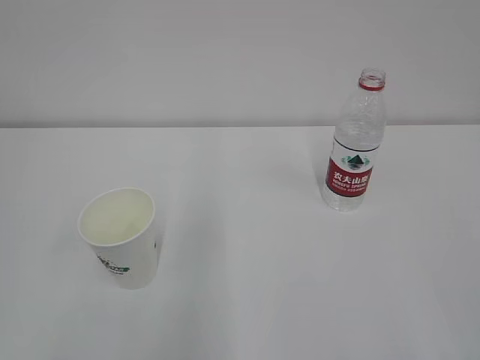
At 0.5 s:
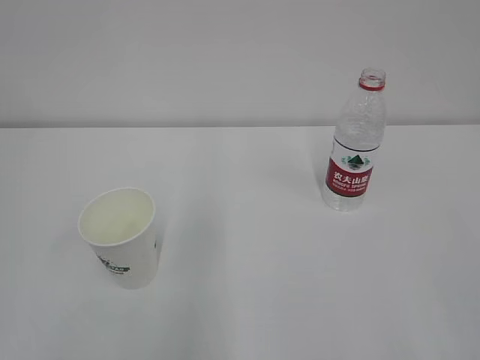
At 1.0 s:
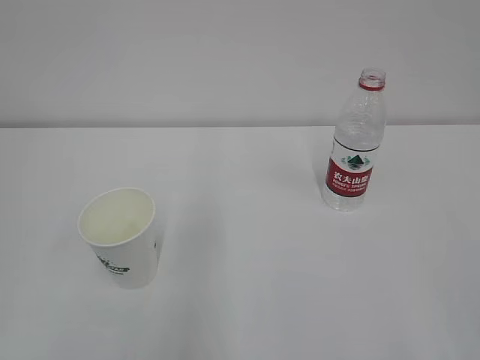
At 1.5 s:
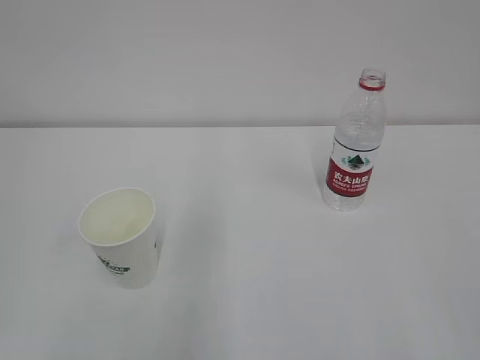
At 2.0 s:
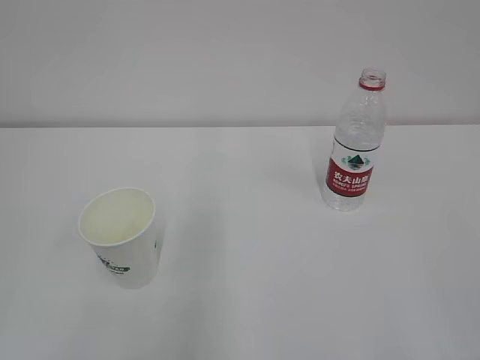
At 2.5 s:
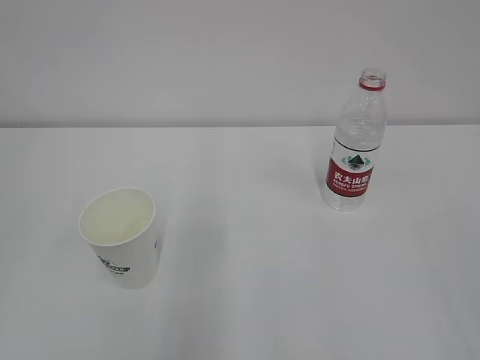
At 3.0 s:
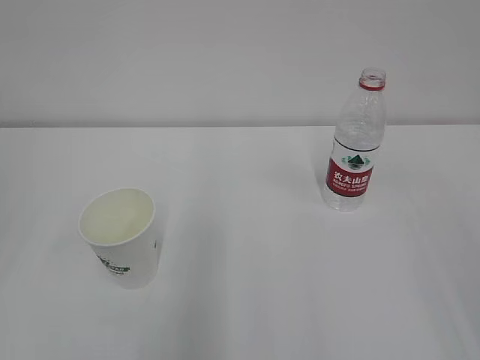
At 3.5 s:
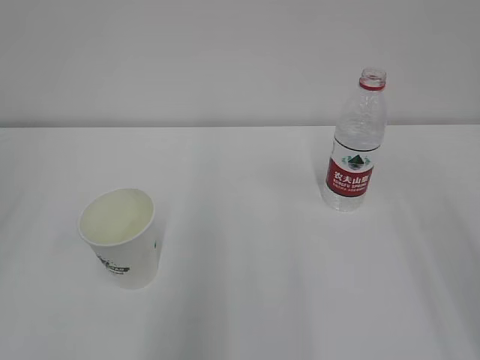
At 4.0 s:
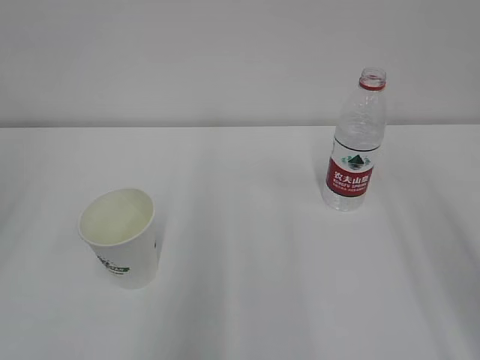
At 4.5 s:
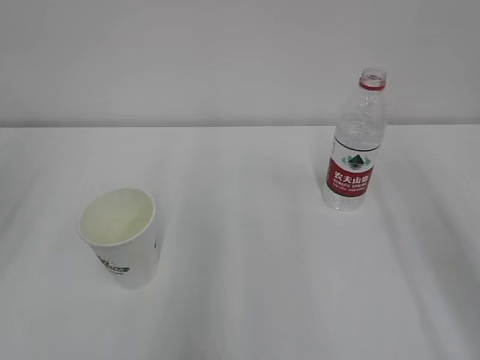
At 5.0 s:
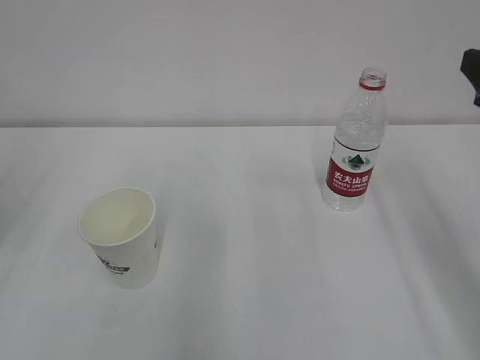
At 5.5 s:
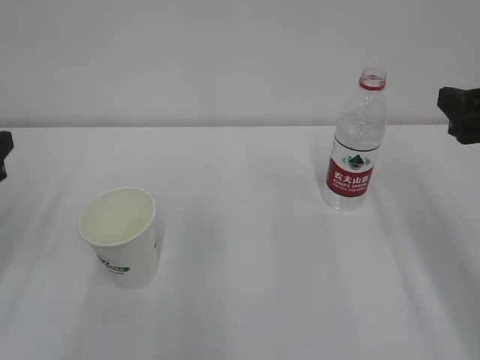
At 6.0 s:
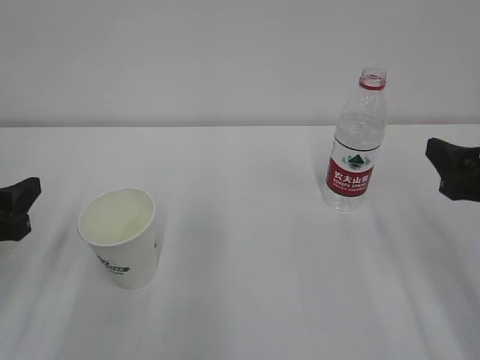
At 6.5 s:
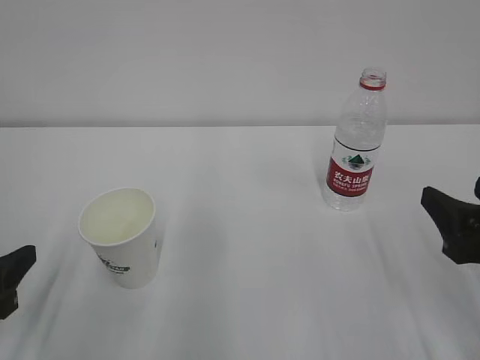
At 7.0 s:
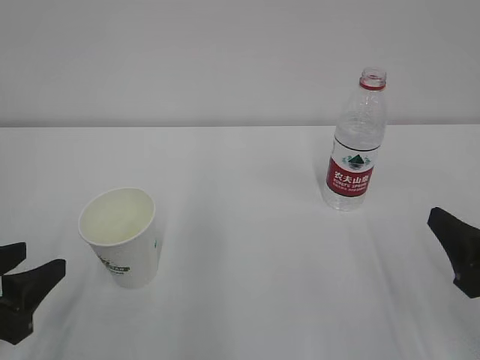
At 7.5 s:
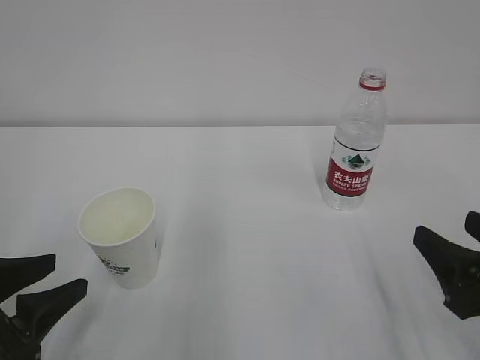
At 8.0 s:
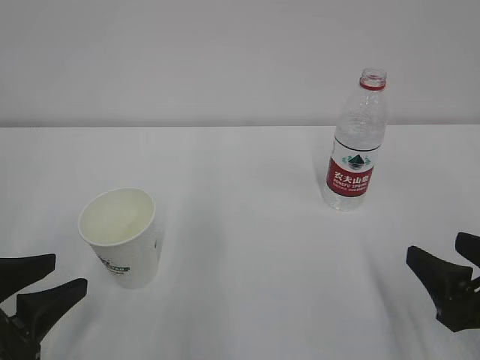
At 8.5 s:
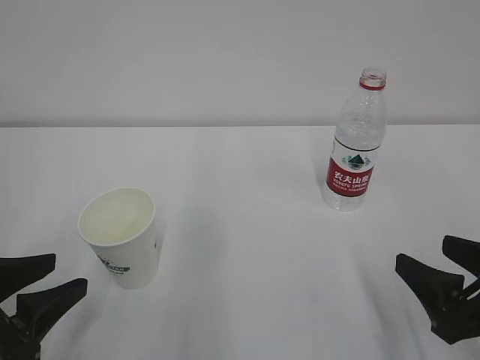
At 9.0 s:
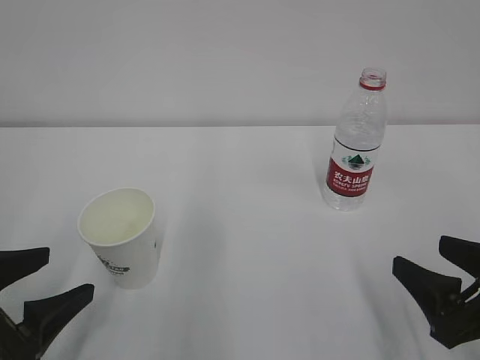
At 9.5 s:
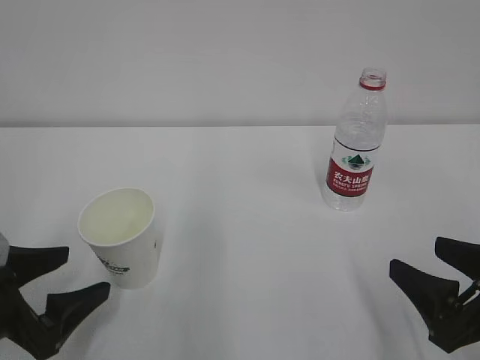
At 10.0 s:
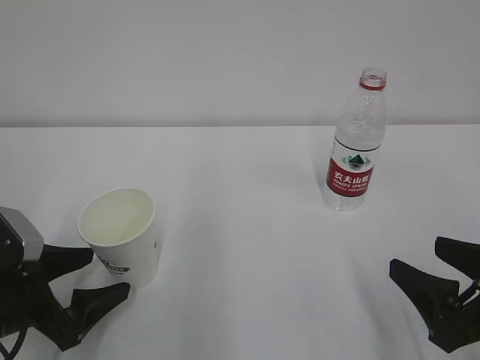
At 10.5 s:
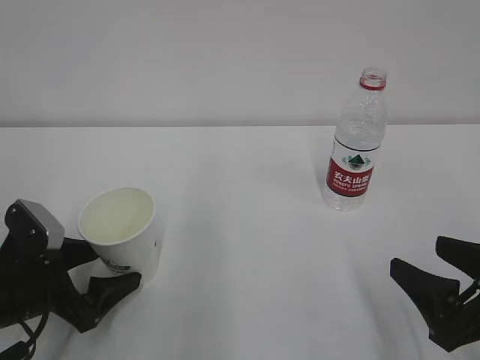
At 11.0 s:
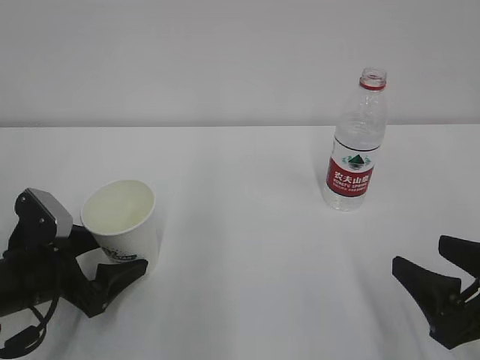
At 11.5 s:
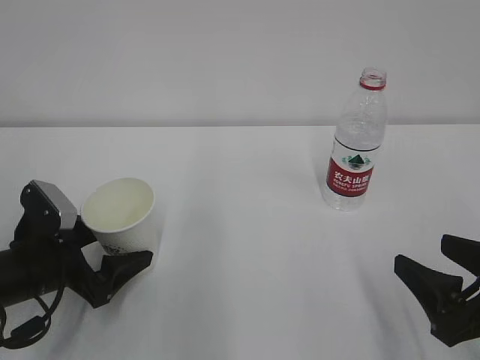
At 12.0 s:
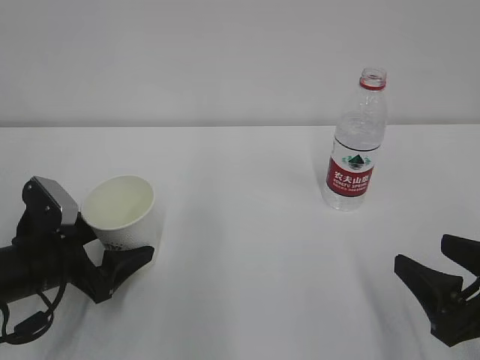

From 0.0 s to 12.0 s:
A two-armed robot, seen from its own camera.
From 4.0 s to 6.0 s: The right gripper heads downward and forward, covering some 15 cm; the left gripper heads downward, covering approximately 20 cm.
From 6.0 s to 8.0 s: The left gripper goes roughly 5 cm backward; the right gripper heads backward and downward, covering about 10 cm.
From 8.0 s to 10.0 s: The left gripper moves approximately 5 cm, and opens.
From 10.0 s to 12.0 s: The left gripper shifts roughly 5 cm forward.

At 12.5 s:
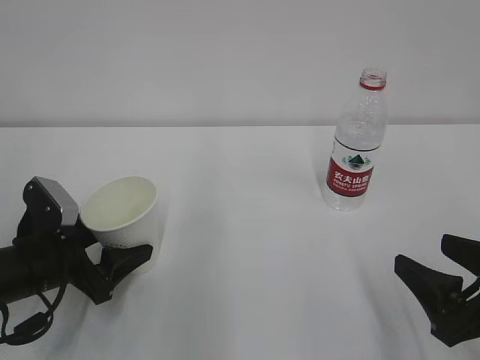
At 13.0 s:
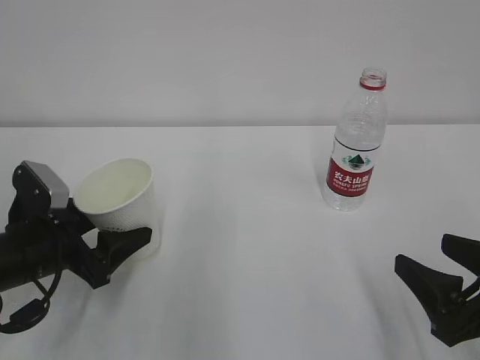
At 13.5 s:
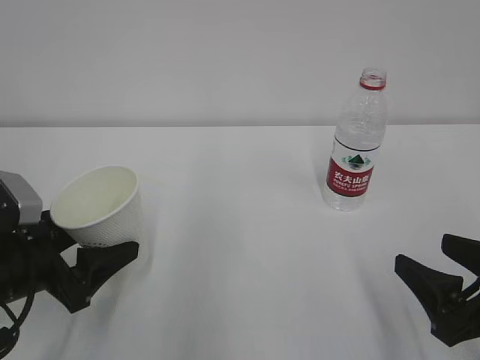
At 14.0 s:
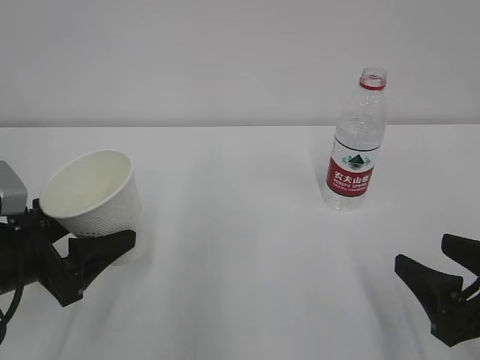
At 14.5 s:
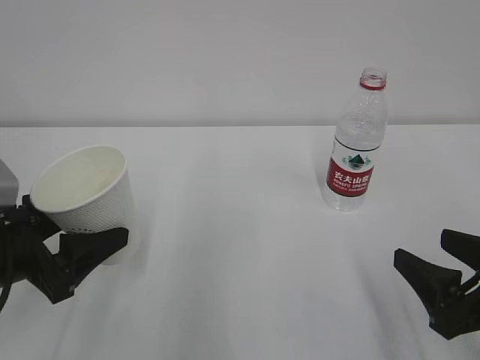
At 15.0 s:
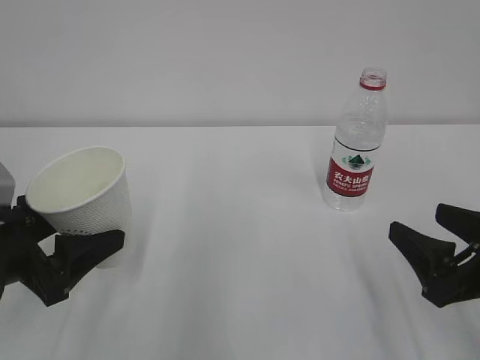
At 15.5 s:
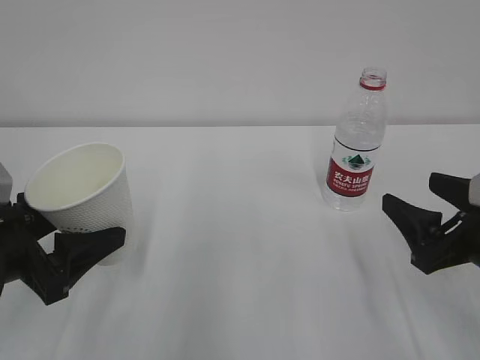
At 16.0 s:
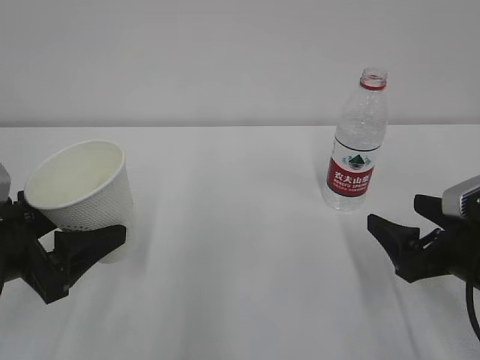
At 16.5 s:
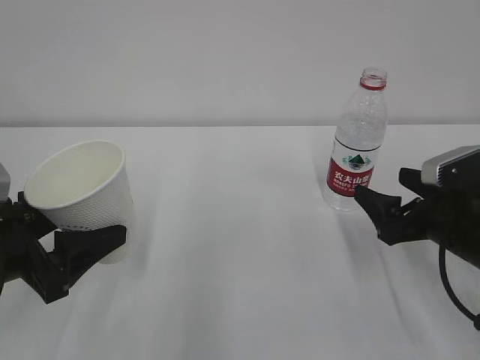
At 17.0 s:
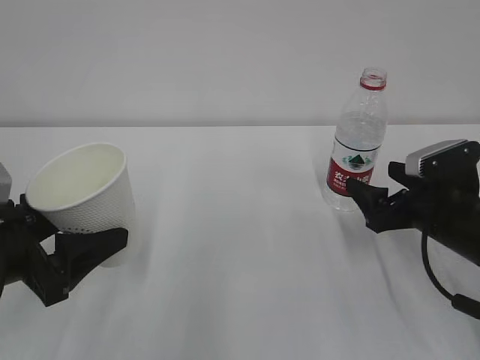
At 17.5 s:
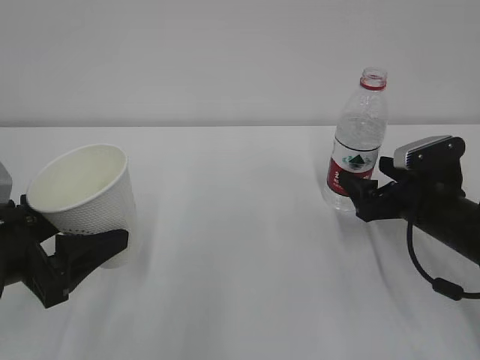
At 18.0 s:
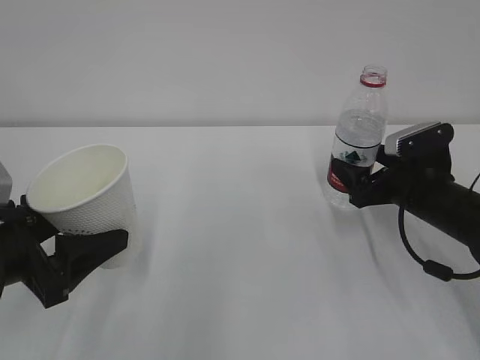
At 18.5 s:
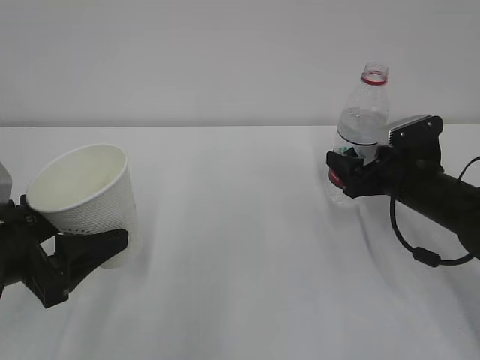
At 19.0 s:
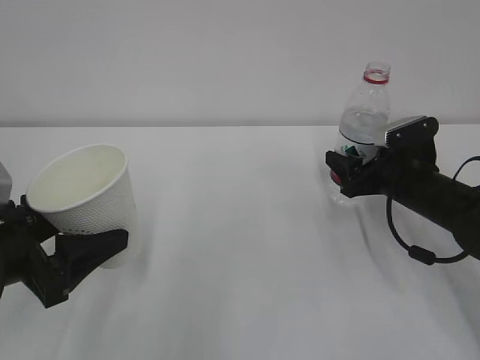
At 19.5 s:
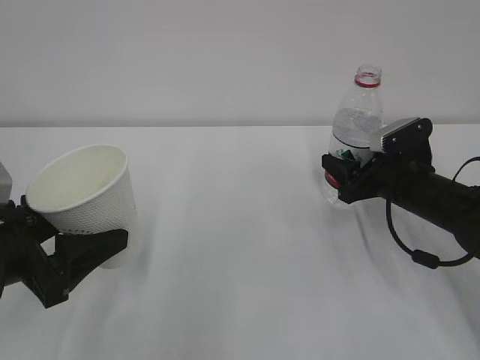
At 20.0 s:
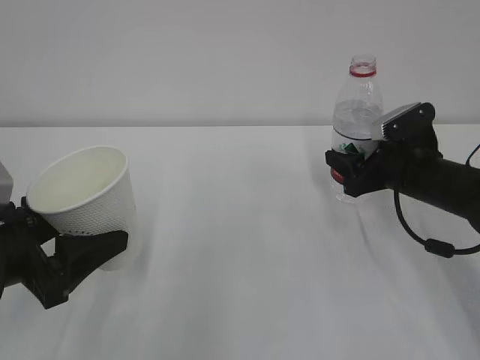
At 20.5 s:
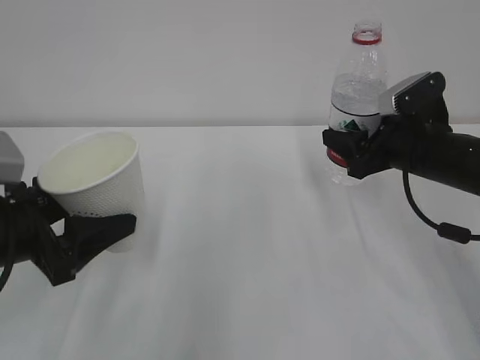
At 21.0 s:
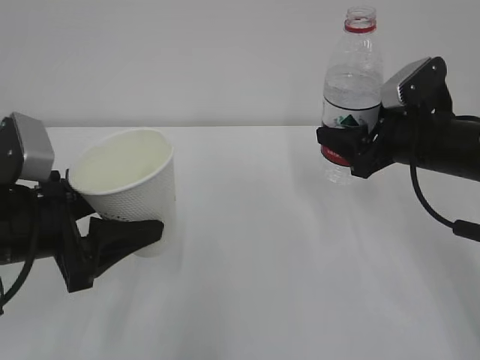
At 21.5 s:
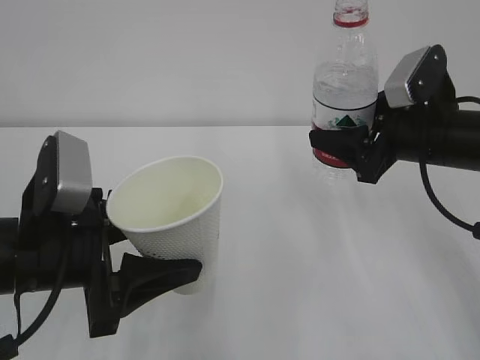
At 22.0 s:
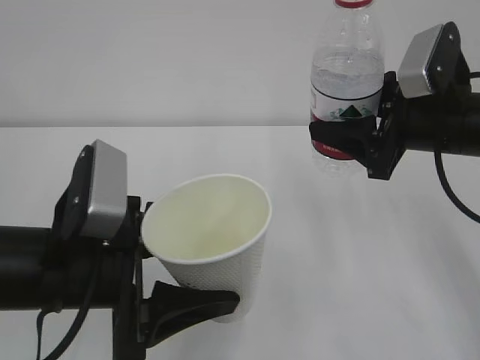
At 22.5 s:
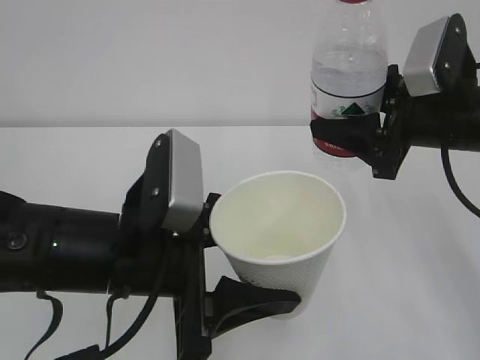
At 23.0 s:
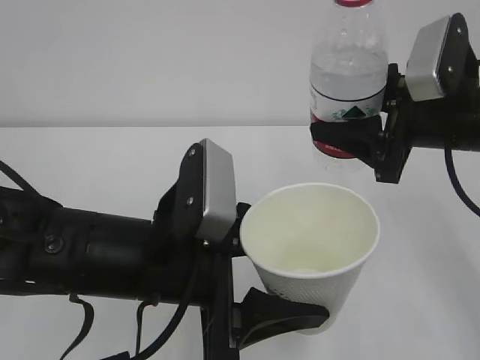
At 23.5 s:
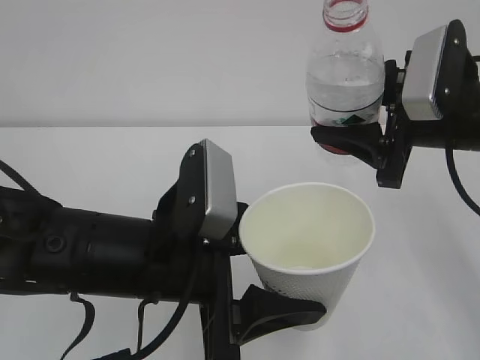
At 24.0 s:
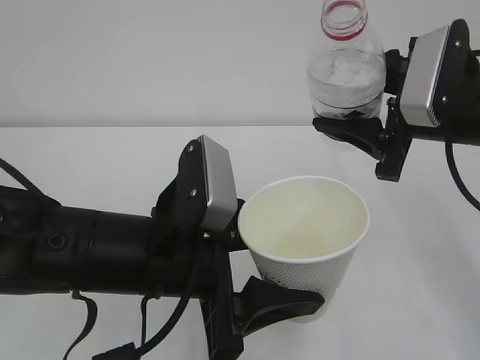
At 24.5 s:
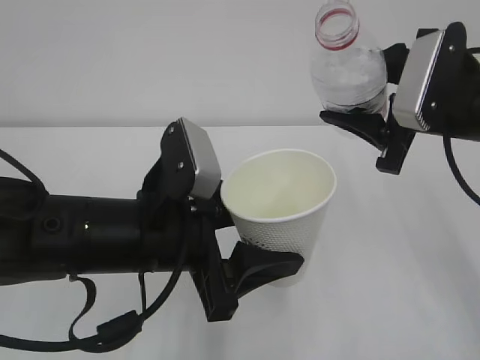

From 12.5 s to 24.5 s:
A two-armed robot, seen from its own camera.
From 12.5 s to 14.5 s: The left gripper goes some 5 cm upward.
From 14.5 s to 16.5 s: The right gripper heads forward, covering about 10 cm, and opens its fingers.
From 16.5 s to 18.5 s: The right gripper moves forward, roughly 10 cm.
From 18.5 s to 20.5 s: The right gripper is displaced upward by approximately 5 cm, and closes up.
From 20.5 s to 22.5 s: The left gripper shifts about 15 cm to the right; the right gripper travels upward and backward by some 10 cm.

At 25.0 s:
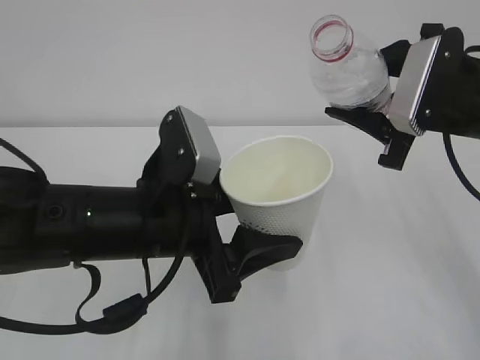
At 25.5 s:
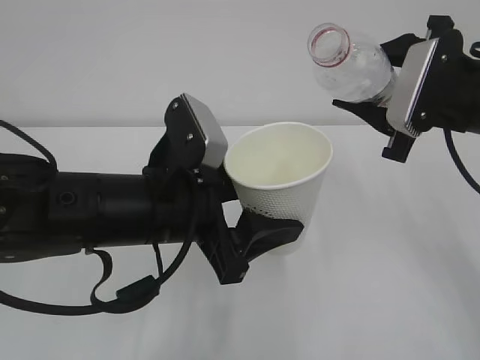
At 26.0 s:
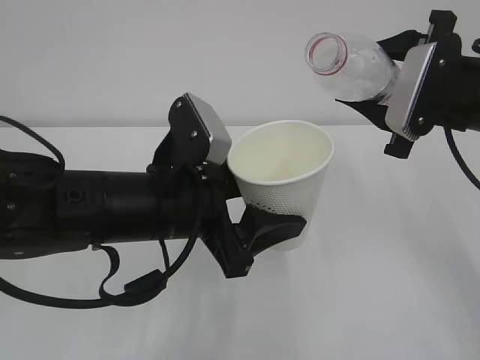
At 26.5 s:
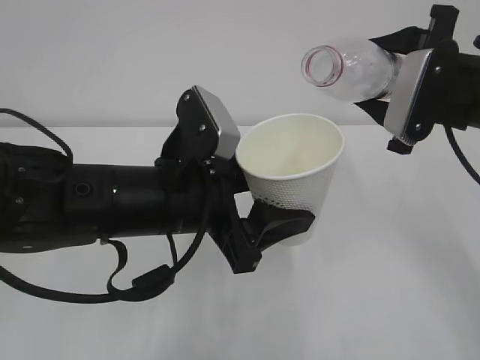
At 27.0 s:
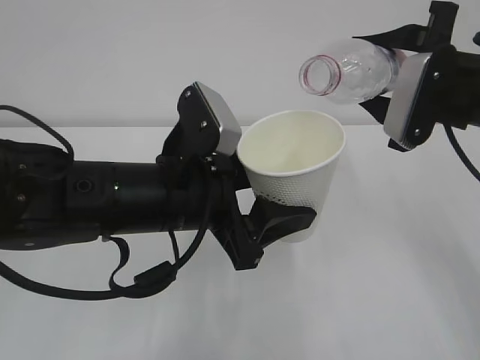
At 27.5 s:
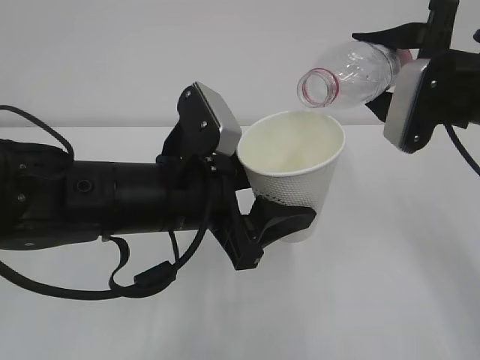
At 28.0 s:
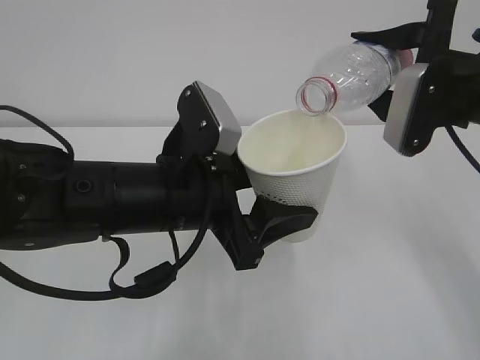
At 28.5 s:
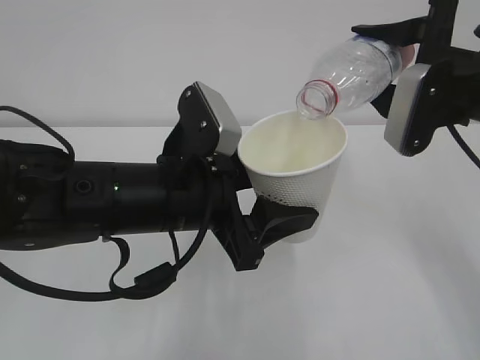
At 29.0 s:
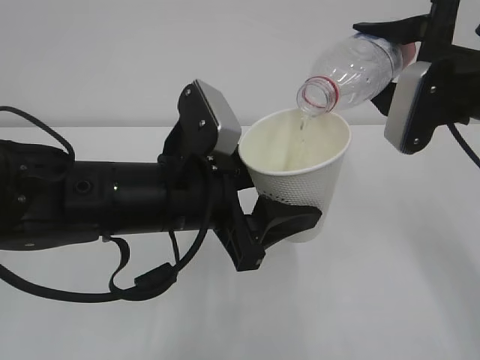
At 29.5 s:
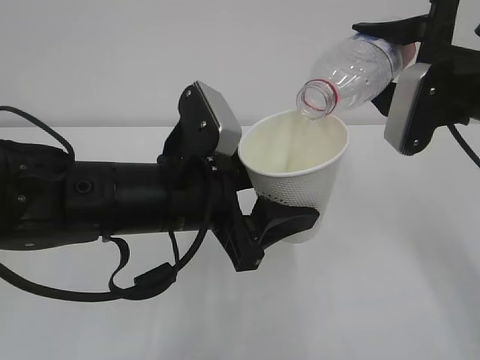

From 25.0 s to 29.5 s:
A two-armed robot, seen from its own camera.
From 27.0 s to 29.5 s: The grippers stay close to where they were, moving slightly.
